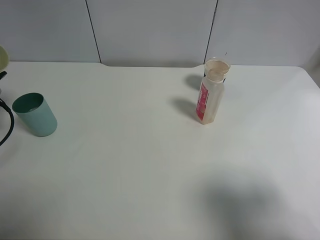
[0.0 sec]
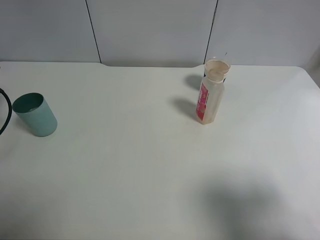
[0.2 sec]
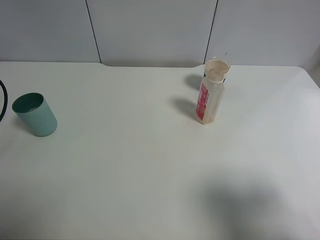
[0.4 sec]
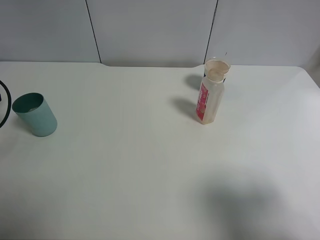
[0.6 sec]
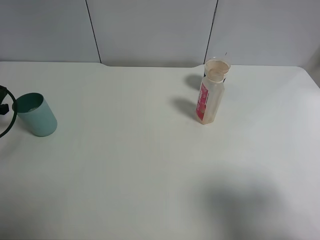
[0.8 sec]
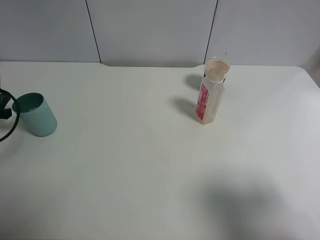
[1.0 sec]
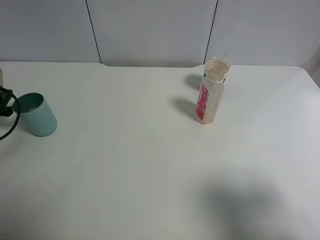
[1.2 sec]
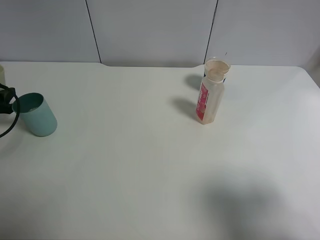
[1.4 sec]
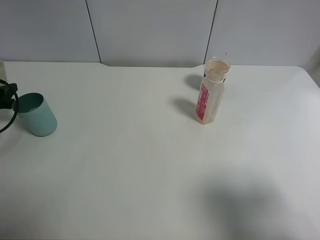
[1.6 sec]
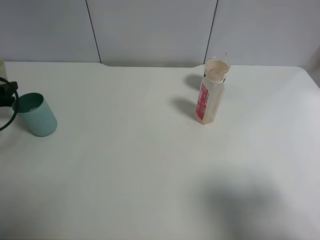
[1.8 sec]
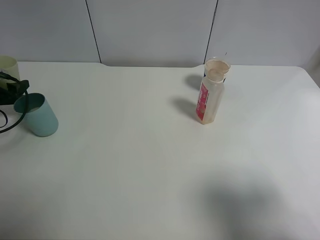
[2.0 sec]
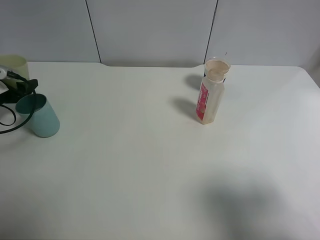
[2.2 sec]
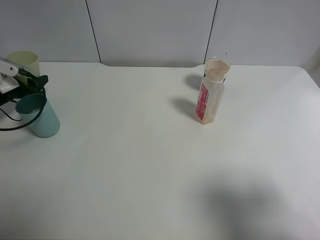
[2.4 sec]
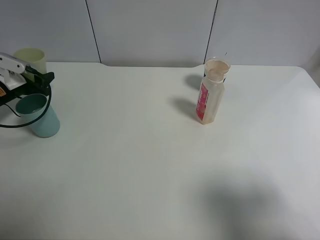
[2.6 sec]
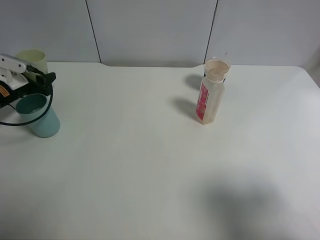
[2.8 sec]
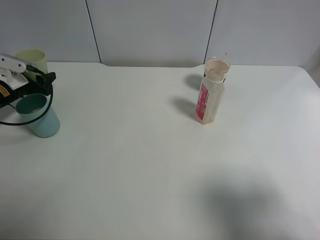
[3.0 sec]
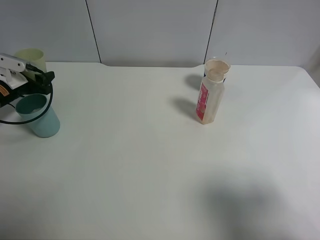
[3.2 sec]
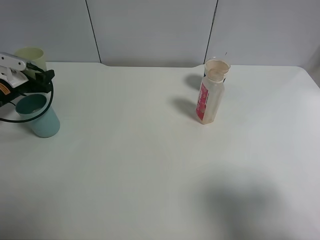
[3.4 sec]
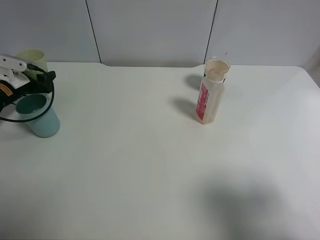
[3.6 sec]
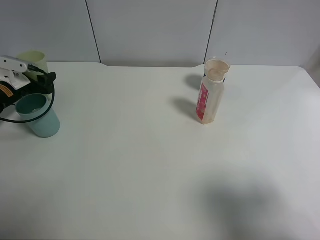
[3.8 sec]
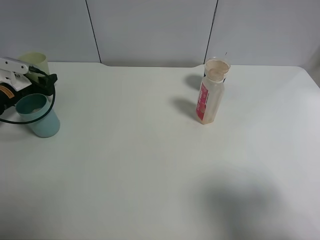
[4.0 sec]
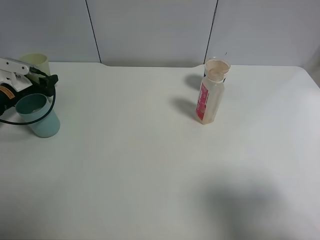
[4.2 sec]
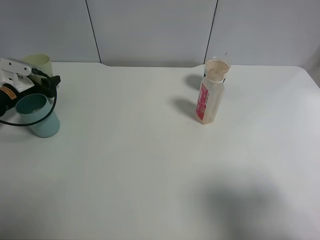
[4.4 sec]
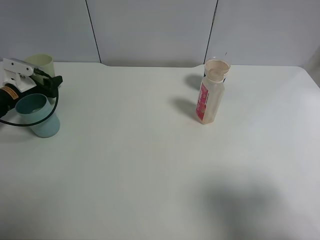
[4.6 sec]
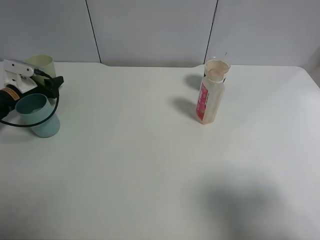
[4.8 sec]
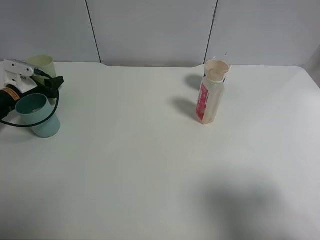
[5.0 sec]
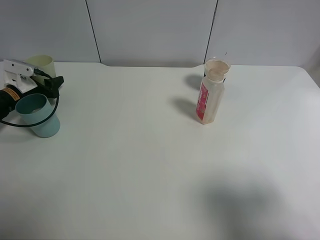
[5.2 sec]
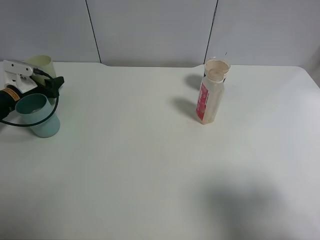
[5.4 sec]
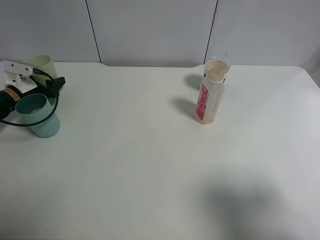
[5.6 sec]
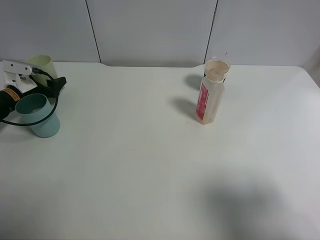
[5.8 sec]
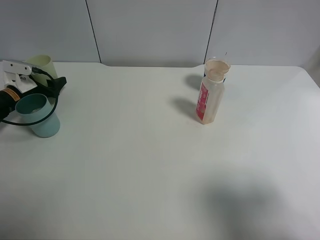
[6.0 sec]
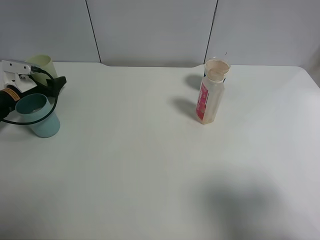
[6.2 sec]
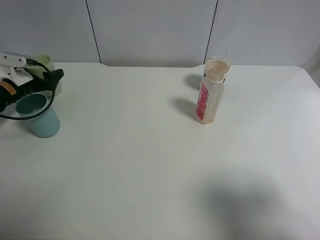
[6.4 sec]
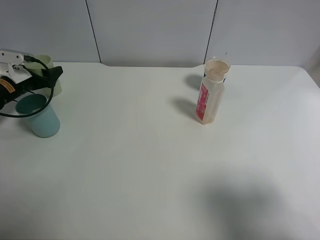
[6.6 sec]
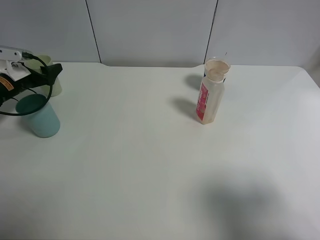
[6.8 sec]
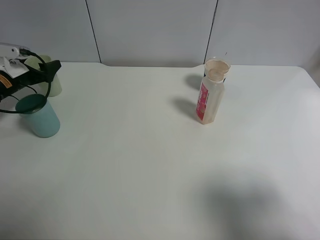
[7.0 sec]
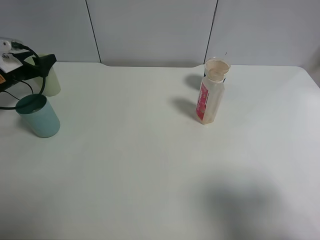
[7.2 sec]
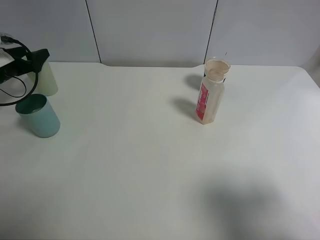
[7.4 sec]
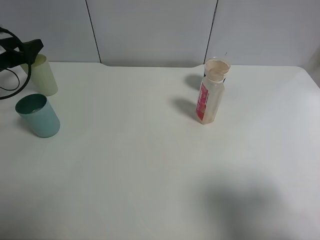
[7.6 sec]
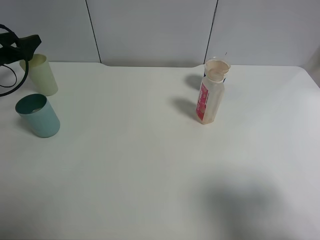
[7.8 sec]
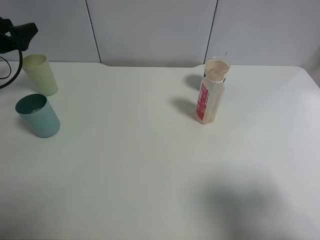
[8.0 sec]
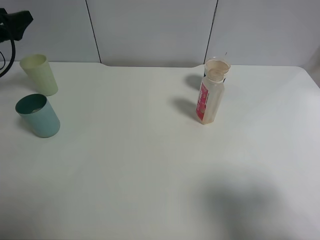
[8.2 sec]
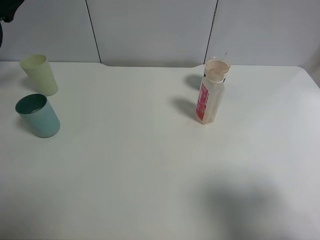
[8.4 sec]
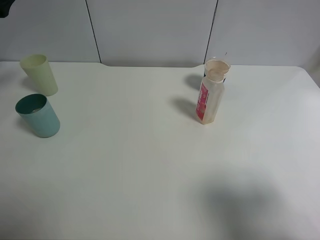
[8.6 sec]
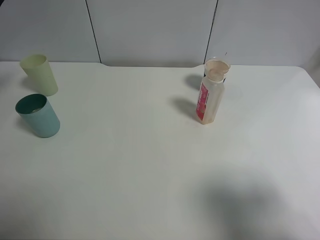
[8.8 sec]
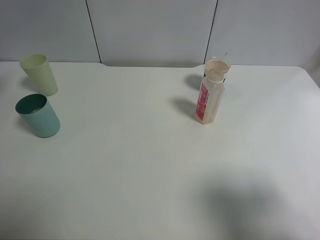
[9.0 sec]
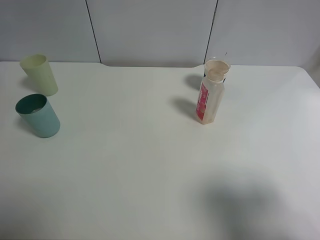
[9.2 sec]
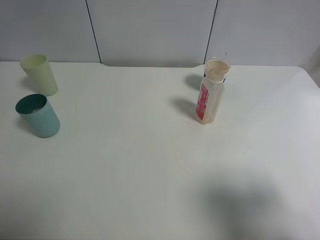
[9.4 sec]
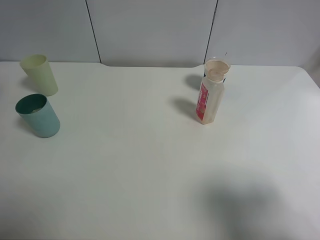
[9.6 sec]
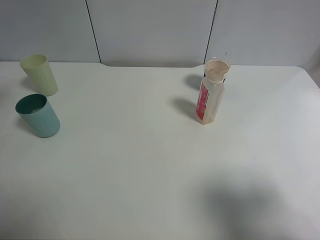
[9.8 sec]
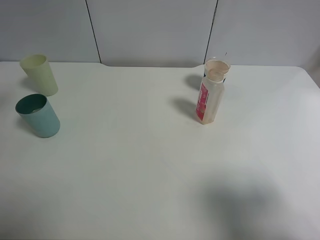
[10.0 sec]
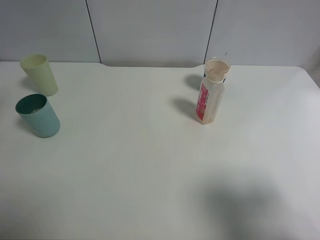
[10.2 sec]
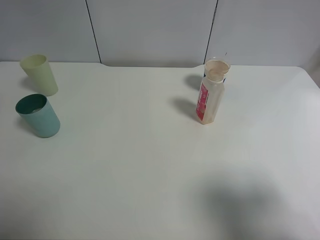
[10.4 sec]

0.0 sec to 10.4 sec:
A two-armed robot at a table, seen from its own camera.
Task of the whole recording: use a clamp to hold the bottle of the drink, pour the beverage into a random cup, then clamp the cup containing the drink and pour the drink into another random cup.
Step, 0.2 sec to 8.2 sec: Place the green plastic cup on the table with left gripper.
0.0 sec to 1.4 sec: The left gripper heads downward, covering some 5 cm.
1.4 sec to 3.0 sec: The left gripper shifts some 10 cm forward.
3.0 sec to 4.4 sec: The grippers stay close to where they were, moving slightly.
4.4 sec to 6.0 sec: The left gripper opens its fingers.
6.0 sec to 7.4 sec: The left gripper moves upward, some 5 cm.
7.4 sec to 9.0 sec: The left gripper is displaced upward and backward by approximately 15 cm.

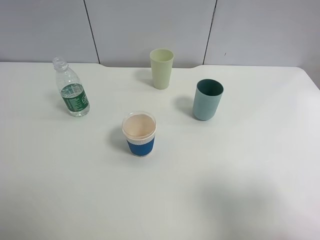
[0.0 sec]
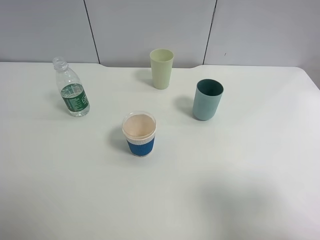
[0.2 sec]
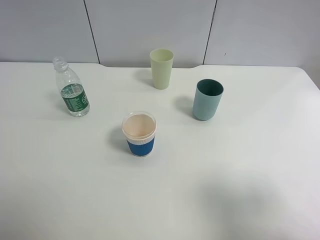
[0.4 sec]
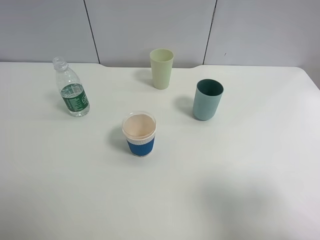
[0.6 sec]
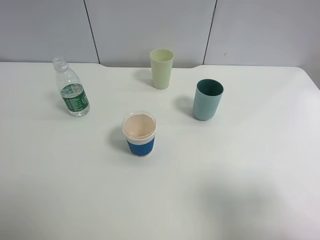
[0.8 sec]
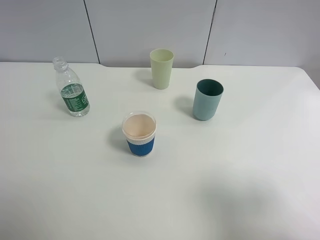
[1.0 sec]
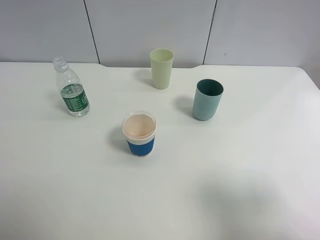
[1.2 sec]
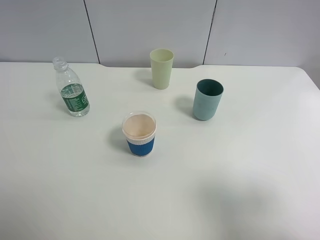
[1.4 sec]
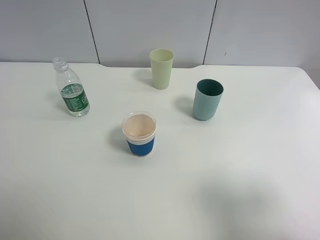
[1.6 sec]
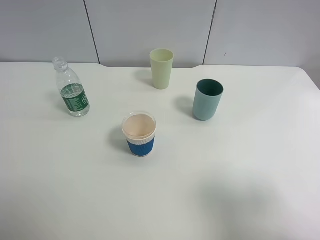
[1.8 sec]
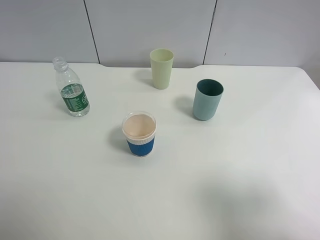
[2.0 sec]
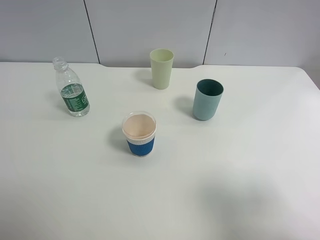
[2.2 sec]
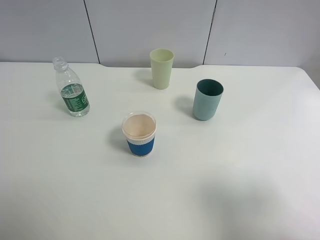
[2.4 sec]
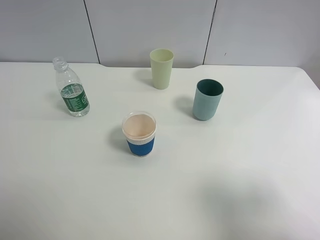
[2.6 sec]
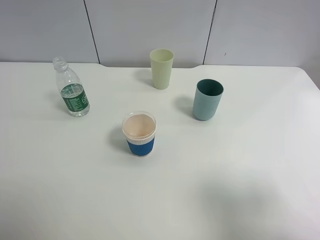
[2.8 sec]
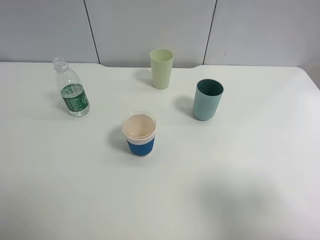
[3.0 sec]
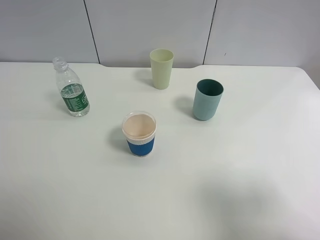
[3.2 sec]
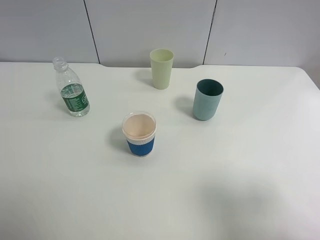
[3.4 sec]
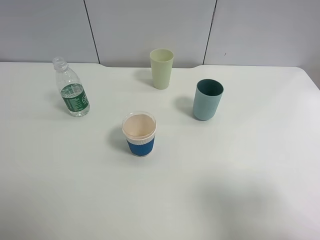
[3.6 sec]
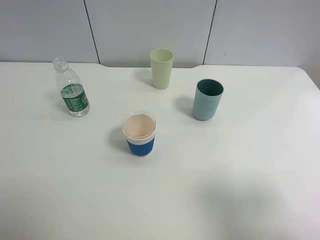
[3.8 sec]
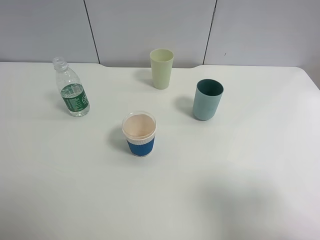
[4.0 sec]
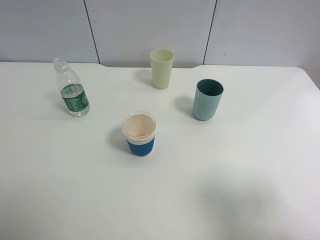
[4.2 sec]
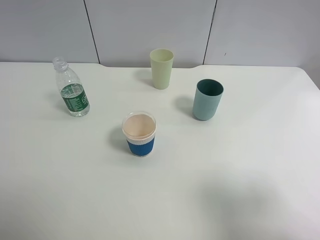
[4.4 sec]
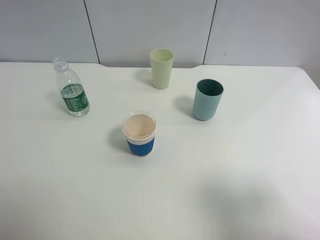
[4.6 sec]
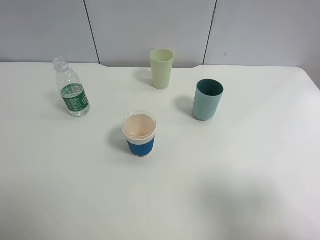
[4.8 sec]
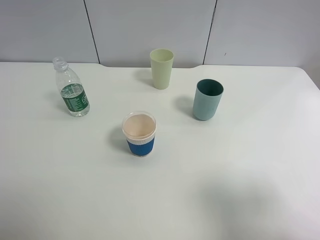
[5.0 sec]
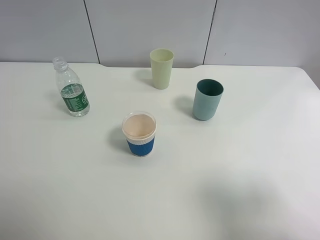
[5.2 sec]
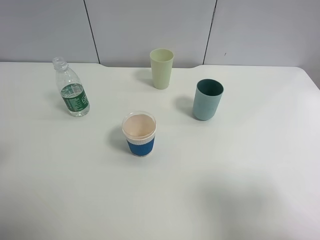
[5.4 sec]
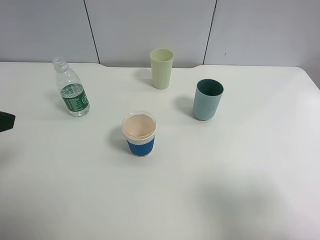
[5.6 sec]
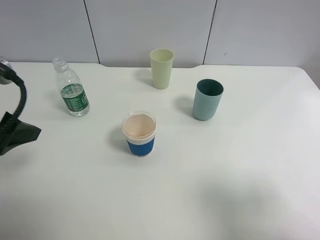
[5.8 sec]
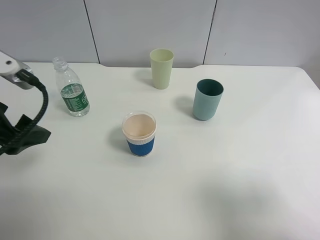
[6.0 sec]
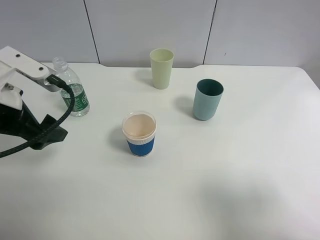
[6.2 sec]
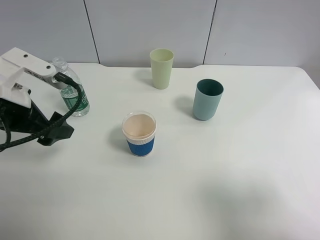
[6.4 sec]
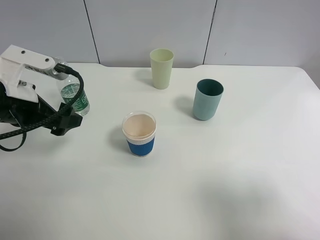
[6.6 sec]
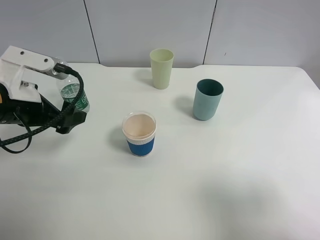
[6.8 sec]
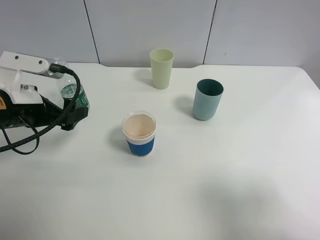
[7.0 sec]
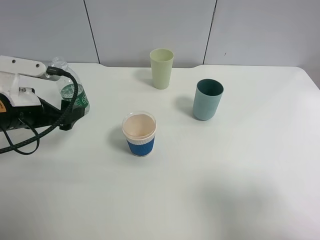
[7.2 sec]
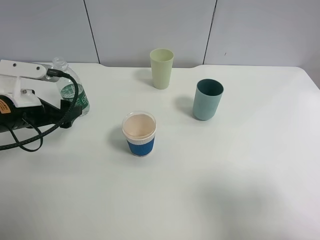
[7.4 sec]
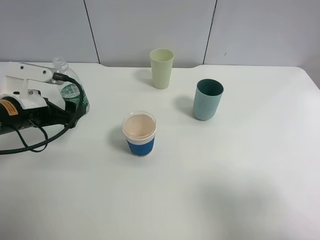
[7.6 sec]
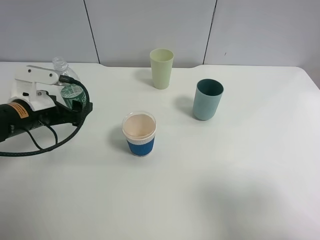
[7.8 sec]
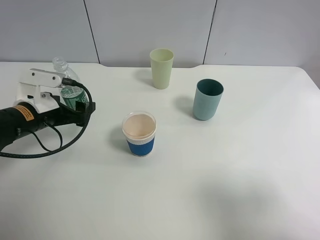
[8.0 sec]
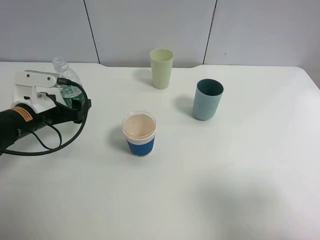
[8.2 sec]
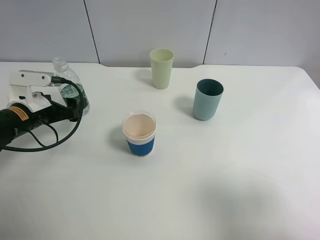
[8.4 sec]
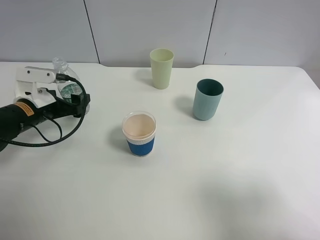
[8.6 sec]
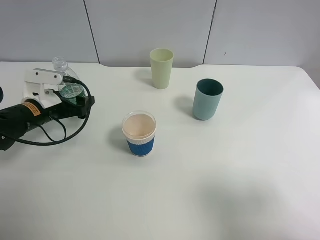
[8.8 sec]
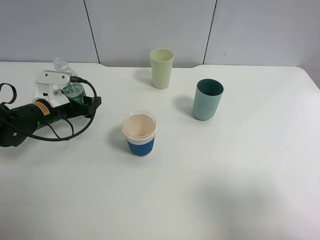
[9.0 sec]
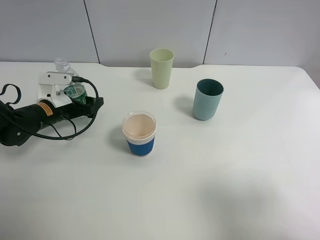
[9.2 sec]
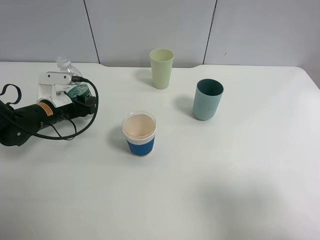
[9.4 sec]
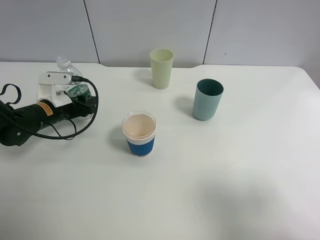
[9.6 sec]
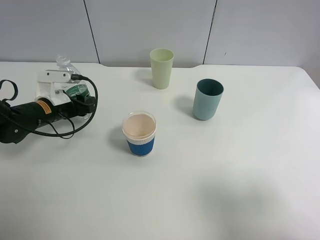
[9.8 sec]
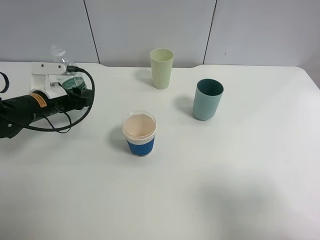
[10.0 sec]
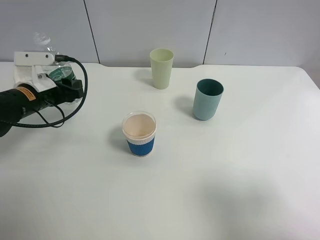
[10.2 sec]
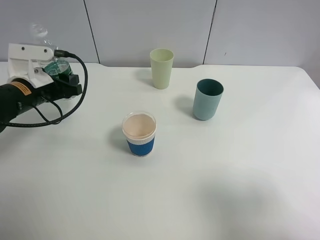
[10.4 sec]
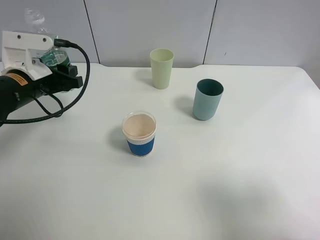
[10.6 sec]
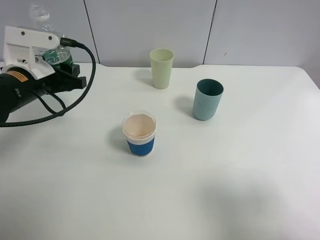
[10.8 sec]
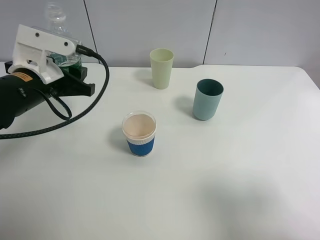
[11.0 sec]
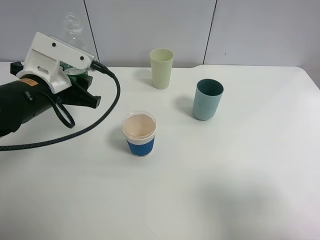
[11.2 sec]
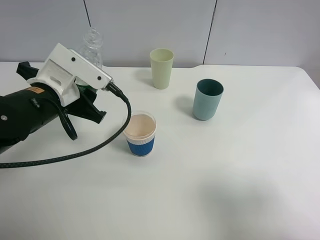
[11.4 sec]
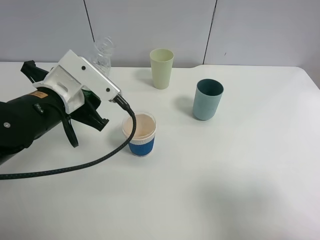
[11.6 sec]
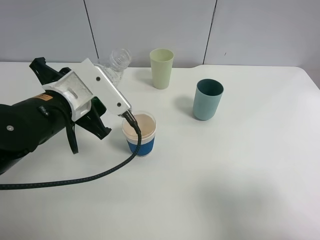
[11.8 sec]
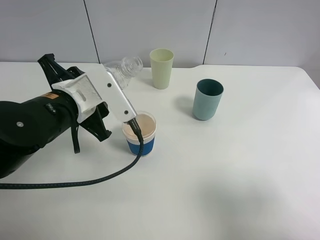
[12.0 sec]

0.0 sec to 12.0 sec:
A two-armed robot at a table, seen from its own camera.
Task of the whole recording: use a clamp to hold the bottle of the drink, pour the beverage into a random cup, then clamp the cup containing the drink and pour the drink into another random cup.
Step, 0.0 sec to 11.0 sec: Pick up the water bottle with left gripper.
0.0 sec to 4.4 sec: The two grippers keep their place.
4.4 sec to 6.0 sec: The left gripper shifts roughly 20 cm forward and to the right.
6.0 sec to 7.6 sec: The left gripper moves downward and forward, roughly 10 cm.
7.6 sec to 9.0 sec: The left gripper heads forward and downward, covering about 10 cm.
9.0 sec to 10.4 sec: The left gripper is displaced upward by about 5 cm, and closes up.
10.4 sec to 12.0 sec: The left gripper travels to the right and backward by roughly 15 cm.
